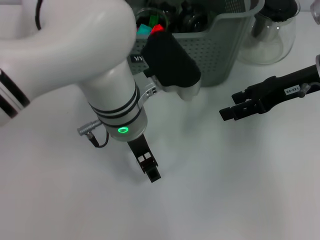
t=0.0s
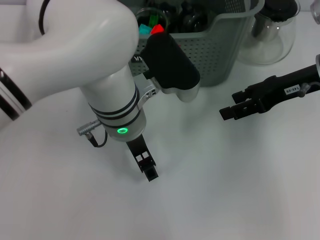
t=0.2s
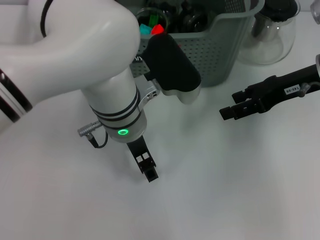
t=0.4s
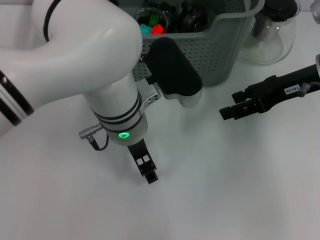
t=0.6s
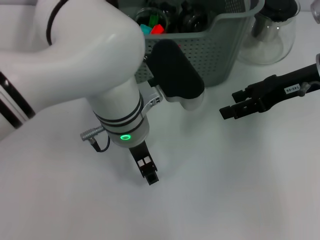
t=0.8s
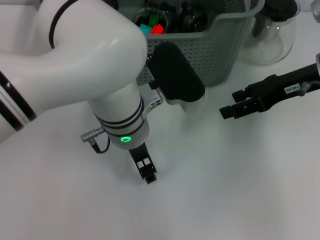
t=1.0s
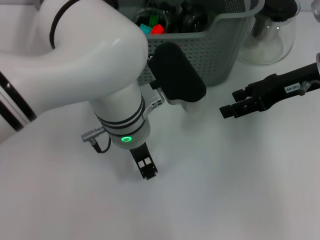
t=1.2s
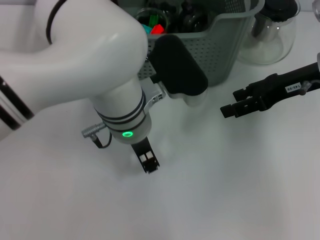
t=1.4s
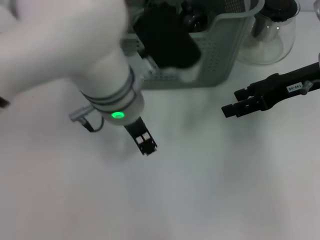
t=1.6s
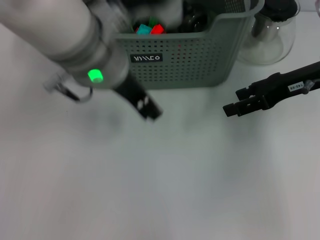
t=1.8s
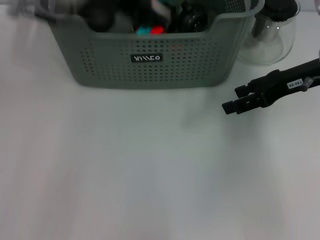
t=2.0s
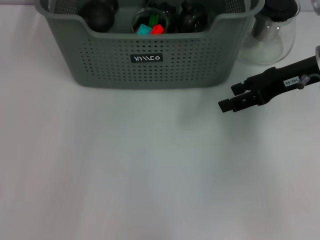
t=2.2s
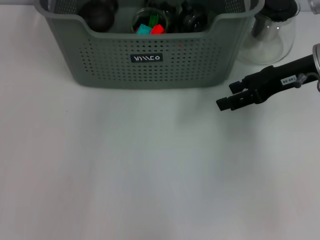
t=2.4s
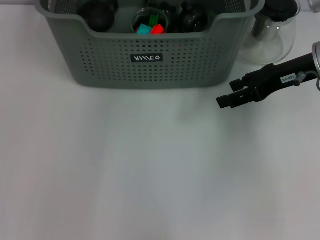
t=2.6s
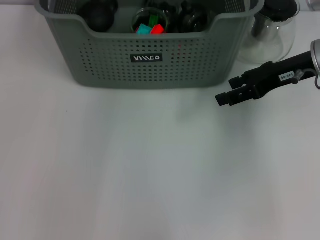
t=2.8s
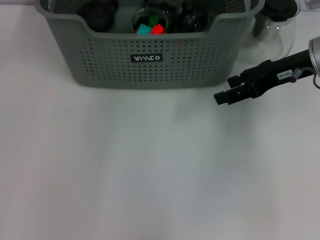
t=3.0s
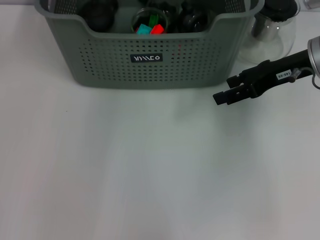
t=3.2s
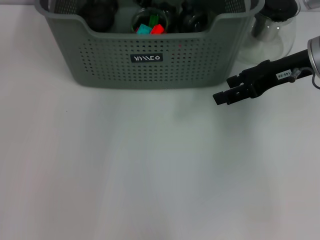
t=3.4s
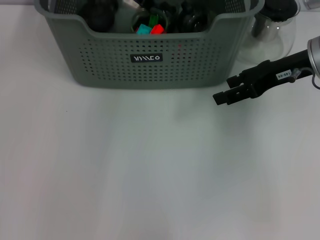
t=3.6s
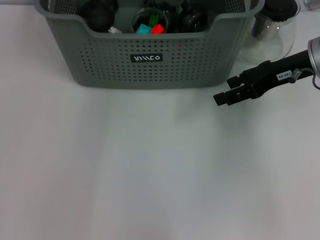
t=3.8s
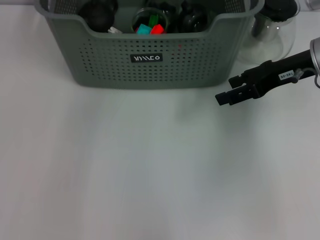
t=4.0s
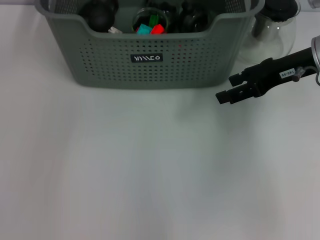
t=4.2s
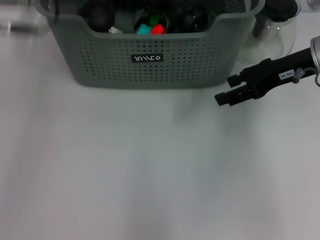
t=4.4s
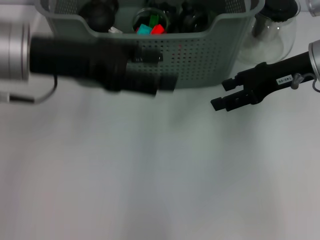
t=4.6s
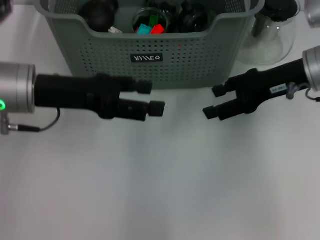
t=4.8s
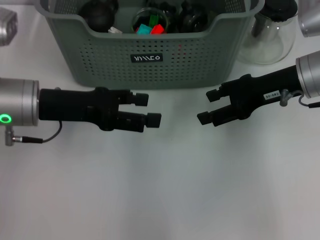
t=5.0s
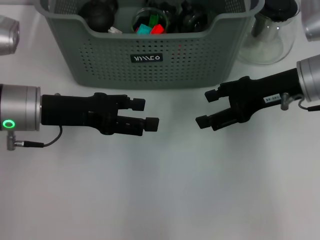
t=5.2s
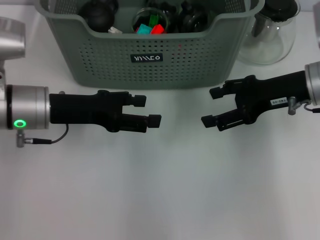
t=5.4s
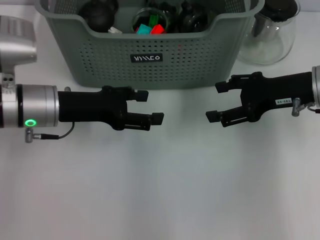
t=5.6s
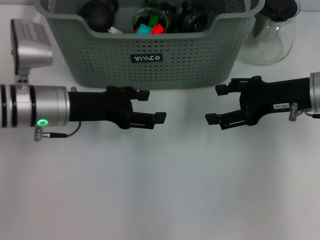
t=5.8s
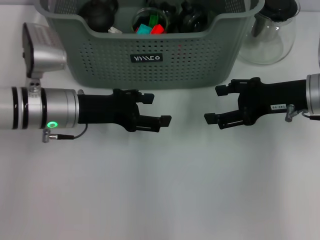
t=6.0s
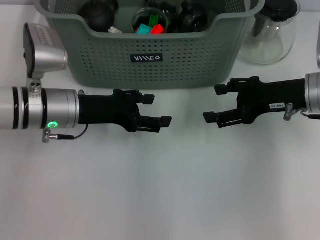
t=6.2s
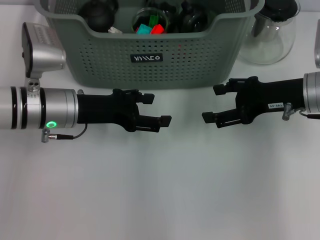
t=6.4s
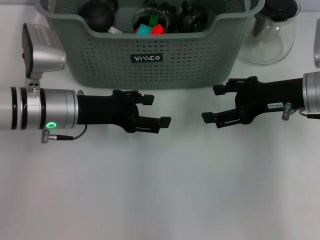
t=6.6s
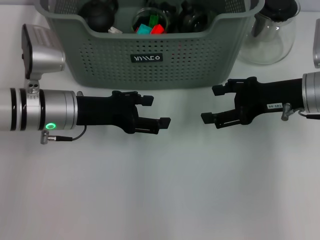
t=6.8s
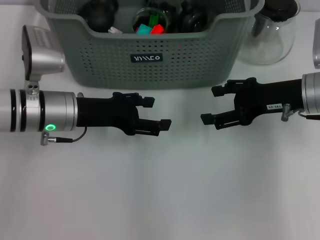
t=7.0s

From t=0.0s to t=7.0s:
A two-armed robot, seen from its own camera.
Task of the whole recording: pick up the teacup on the table and place it into the storage bin, pick up the block on the table and place it into the storage bin.
Step, from t=1.4s to t=3.6s: Place the white block in the storage box with left gripper.
From t=0.0s to t=1.4s: The left gripper closes up.
From t=1.4s to t=2.8s: The left gripper shifts some 20 cm forward and upward.
From t=4.2s to t=5.6s: The right gripper ends up approximately 5 cm from where it was. Meanwhile the left gripper moves downward, some 20 cm.
From t=5.6s to t=7.0s: The grippers make only small movements.
